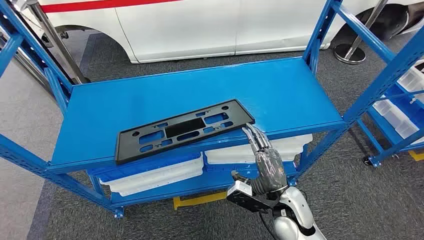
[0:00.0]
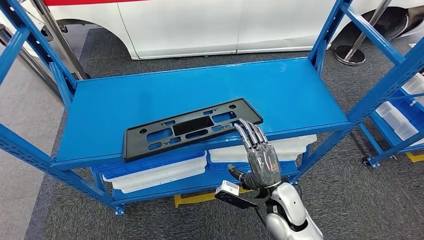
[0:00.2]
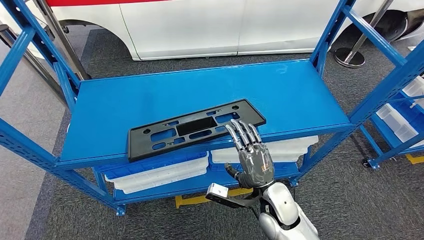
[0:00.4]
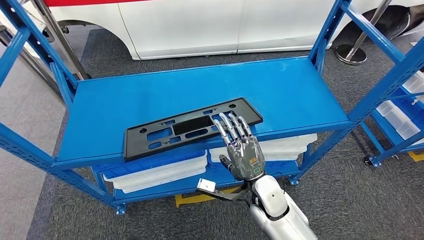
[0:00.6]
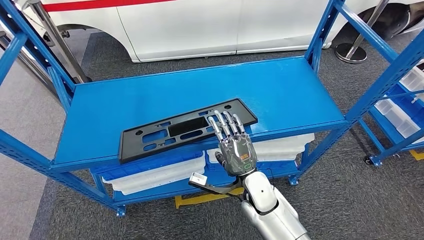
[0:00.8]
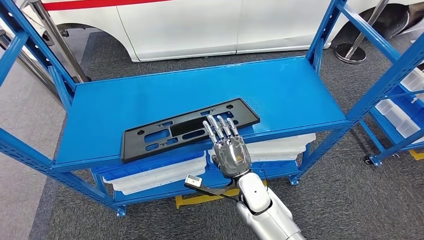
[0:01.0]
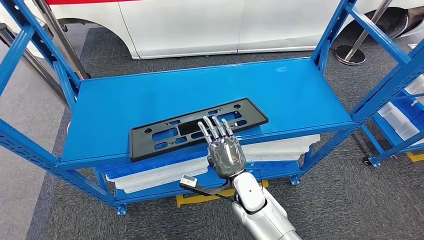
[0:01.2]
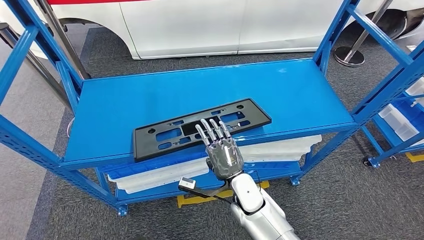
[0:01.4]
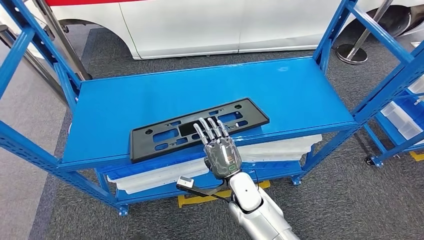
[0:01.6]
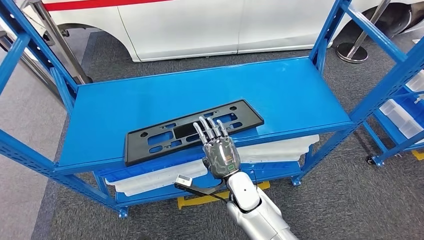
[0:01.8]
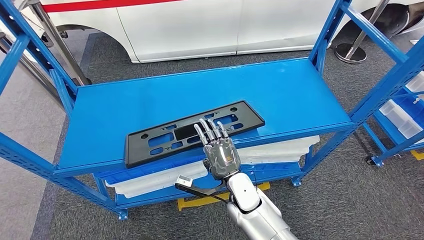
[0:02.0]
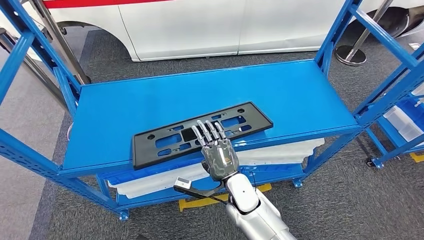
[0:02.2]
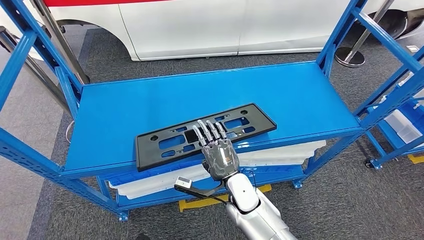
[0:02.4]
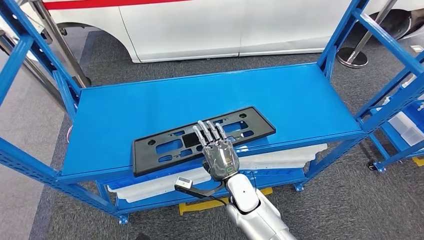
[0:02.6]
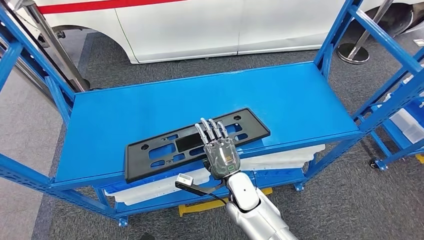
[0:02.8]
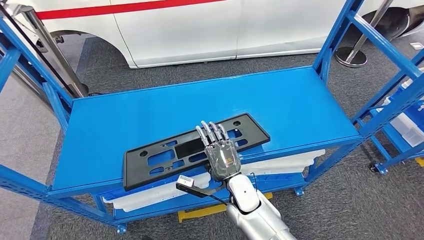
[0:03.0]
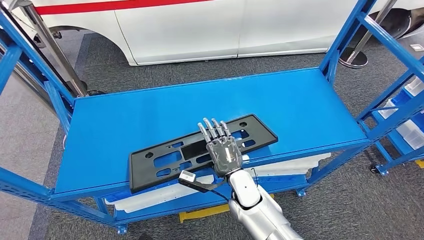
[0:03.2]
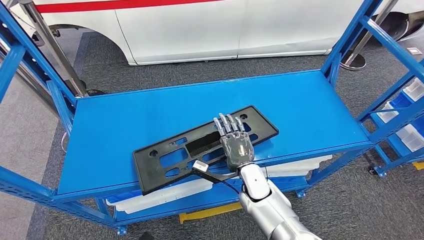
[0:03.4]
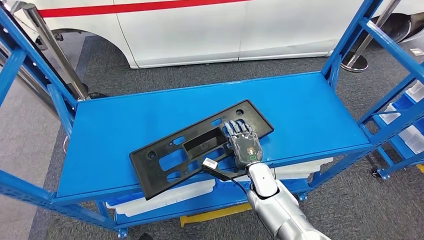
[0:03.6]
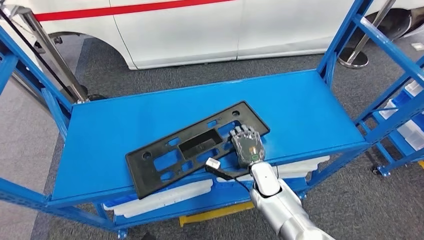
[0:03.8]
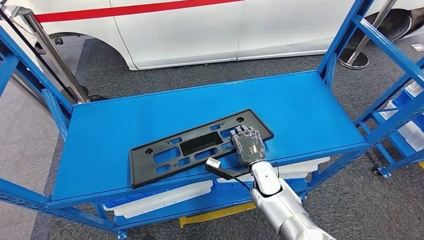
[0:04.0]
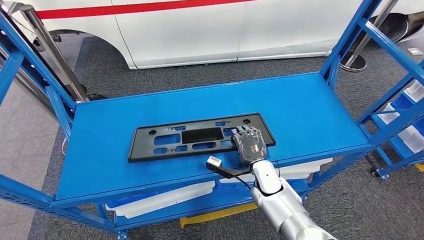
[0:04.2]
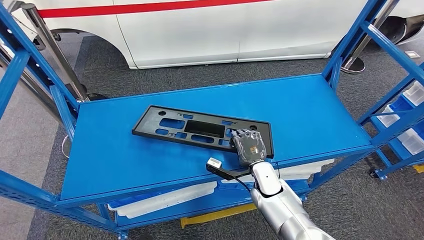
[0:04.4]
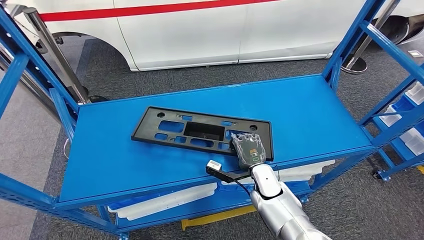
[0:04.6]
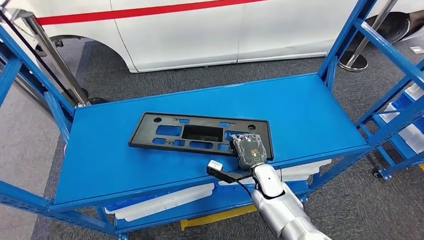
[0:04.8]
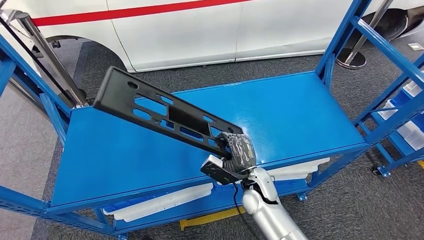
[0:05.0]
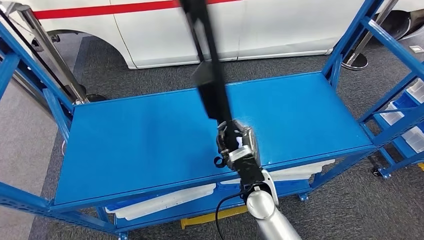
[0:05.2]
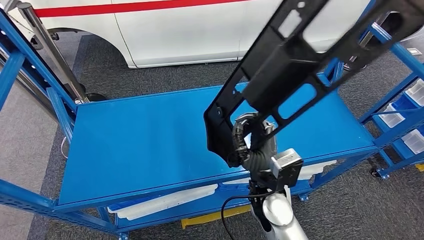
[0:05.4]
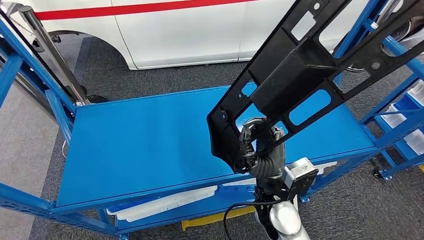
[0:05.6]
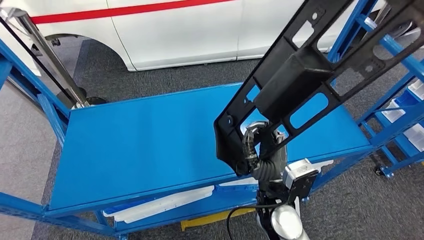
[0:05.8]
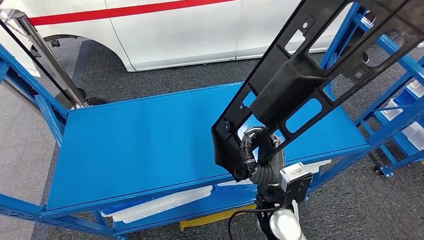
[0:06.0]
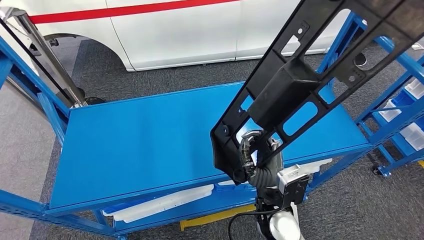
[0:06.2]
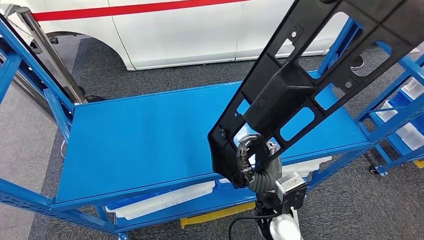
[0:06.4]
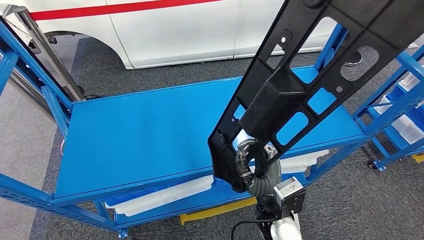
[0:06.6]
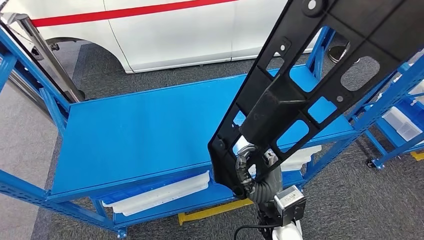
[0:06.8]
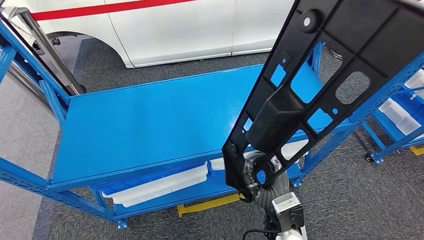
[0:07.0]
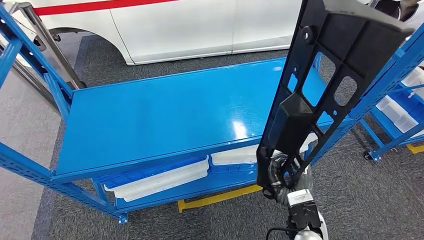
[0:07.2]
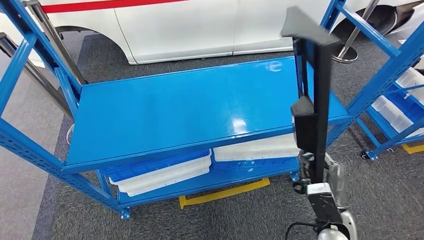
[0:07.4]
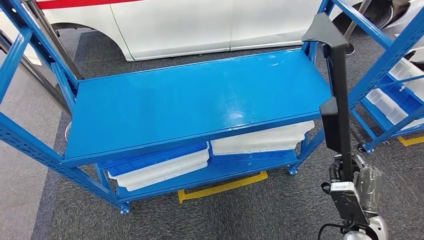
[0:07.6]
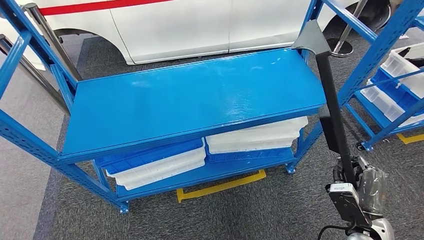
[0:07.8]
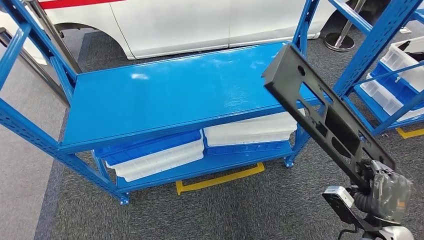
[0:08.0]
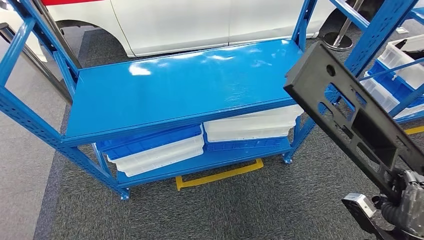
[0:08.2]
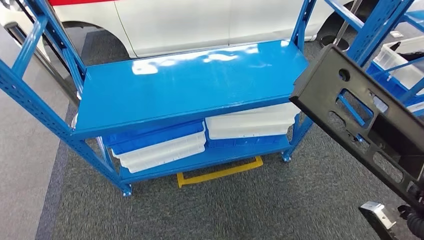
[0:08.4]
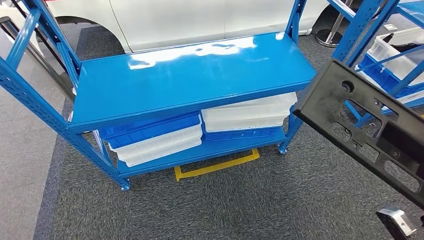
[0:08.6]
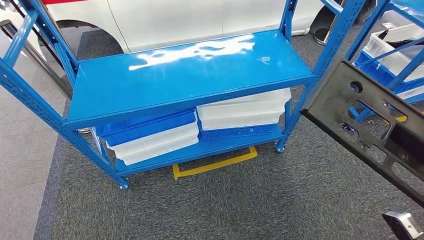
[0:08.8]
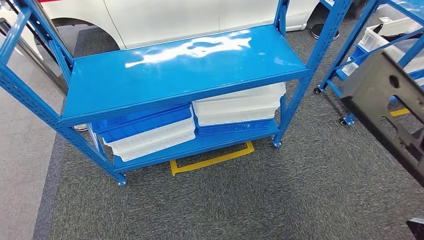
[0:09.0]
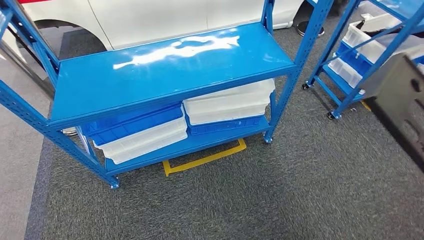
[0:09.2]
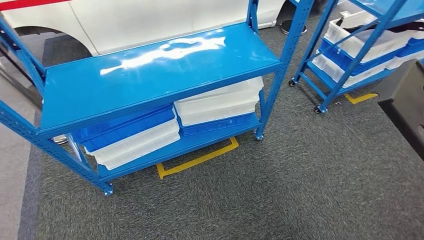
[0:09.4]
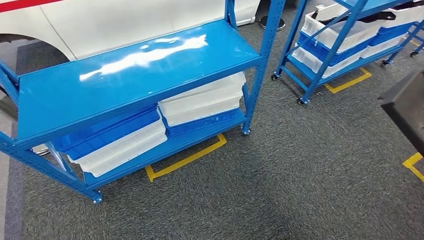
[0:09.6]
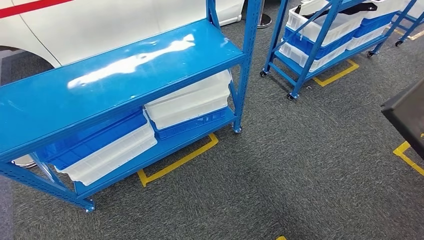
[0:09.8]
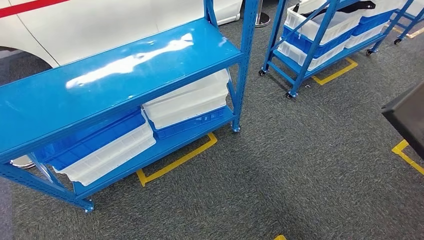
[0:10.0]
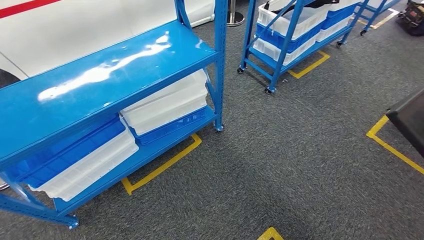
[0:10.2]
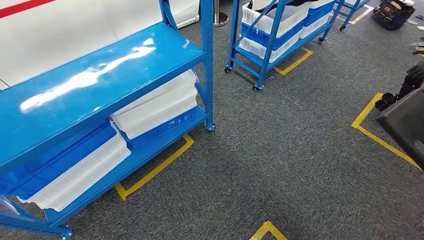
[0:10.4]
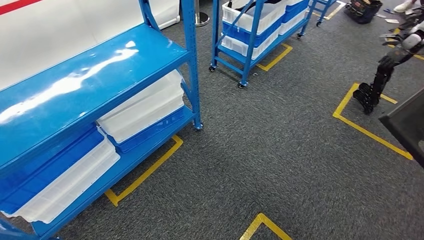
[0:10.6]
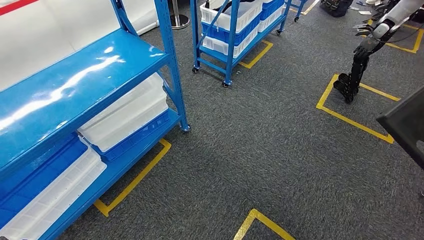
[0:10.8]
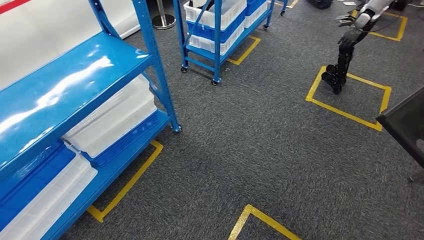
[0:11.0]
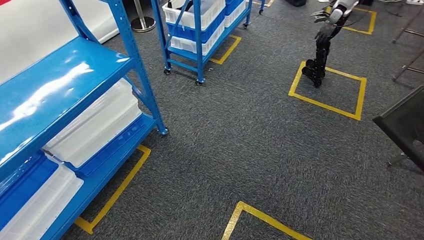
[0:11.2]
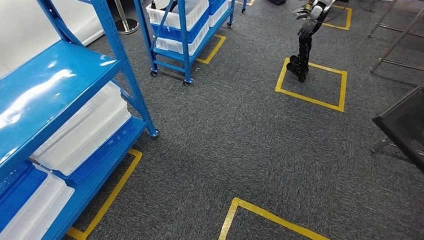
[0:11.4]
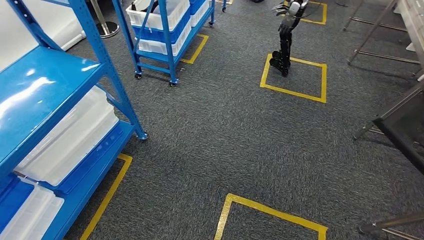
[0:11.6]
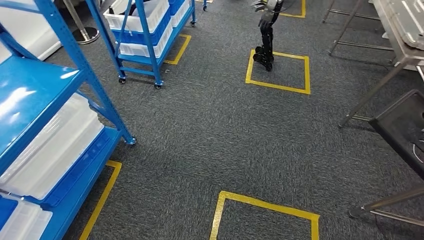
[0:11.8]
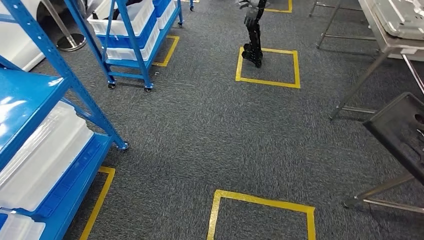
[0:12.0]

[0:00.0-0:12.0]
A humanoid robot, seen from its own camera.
Step, 0:00.0 to 0:05.0: Pick up the large material from the shelf.

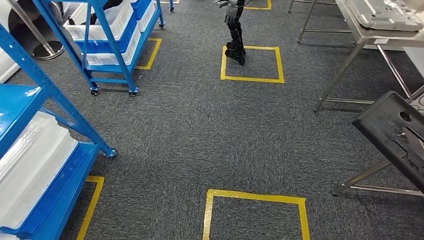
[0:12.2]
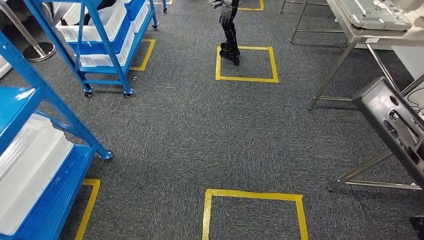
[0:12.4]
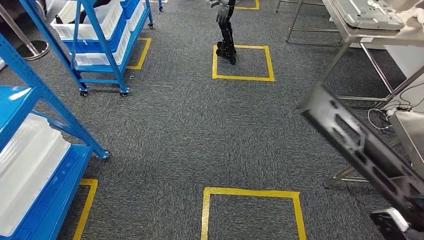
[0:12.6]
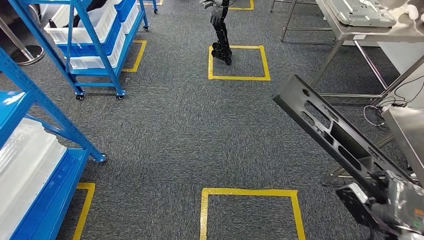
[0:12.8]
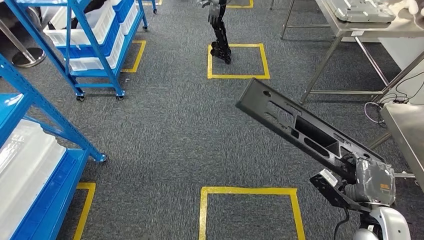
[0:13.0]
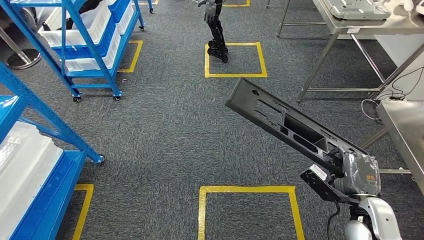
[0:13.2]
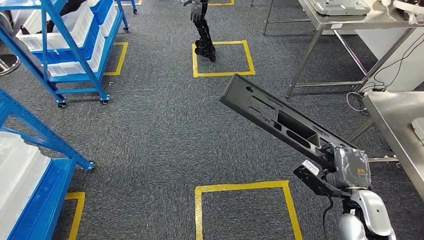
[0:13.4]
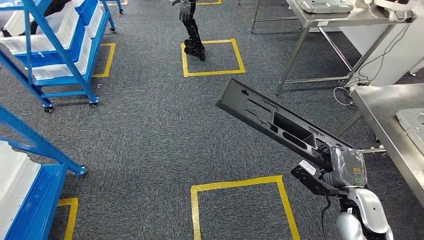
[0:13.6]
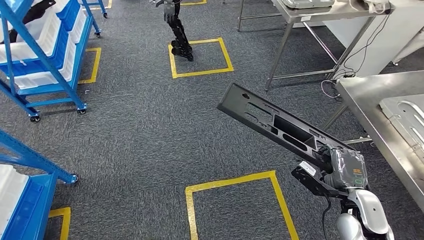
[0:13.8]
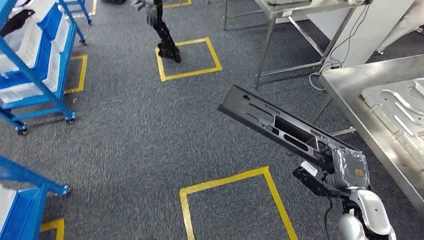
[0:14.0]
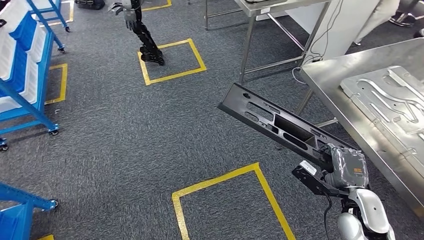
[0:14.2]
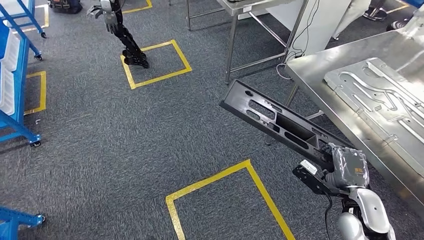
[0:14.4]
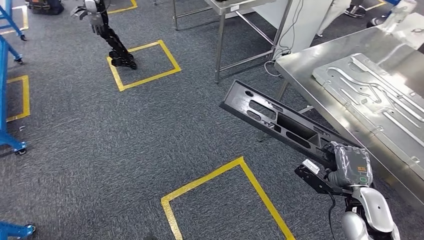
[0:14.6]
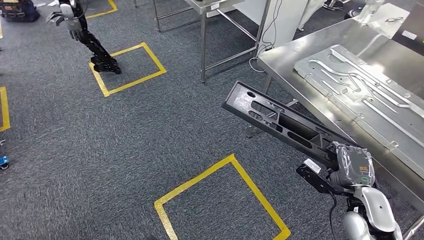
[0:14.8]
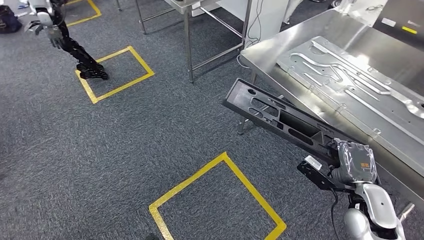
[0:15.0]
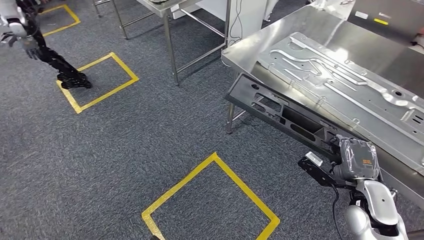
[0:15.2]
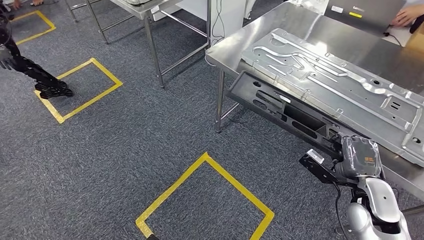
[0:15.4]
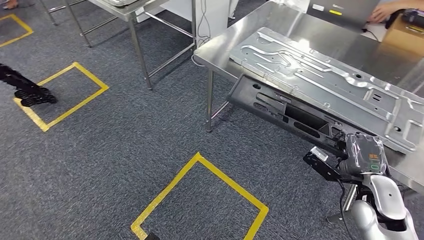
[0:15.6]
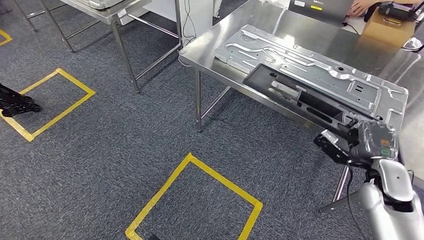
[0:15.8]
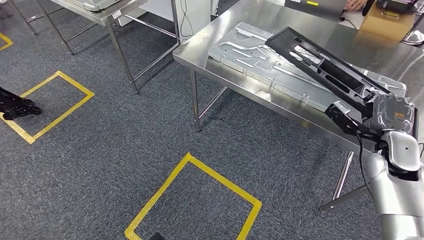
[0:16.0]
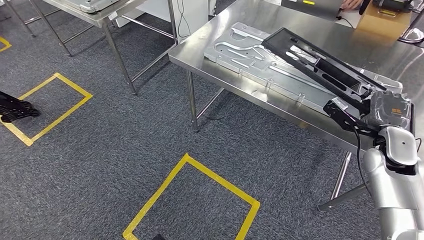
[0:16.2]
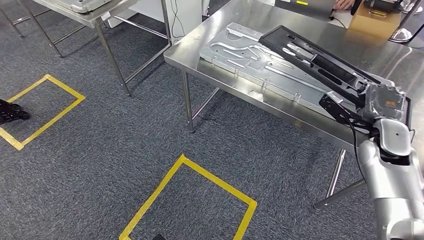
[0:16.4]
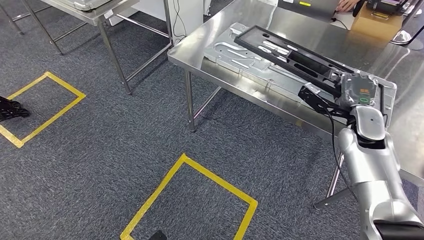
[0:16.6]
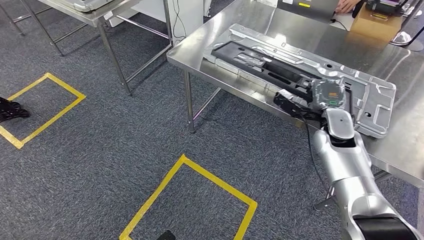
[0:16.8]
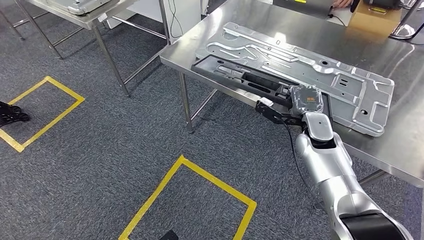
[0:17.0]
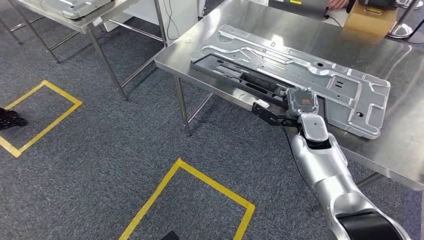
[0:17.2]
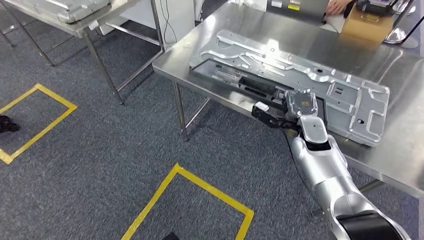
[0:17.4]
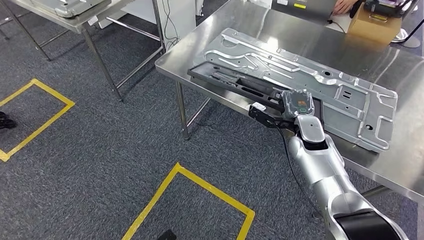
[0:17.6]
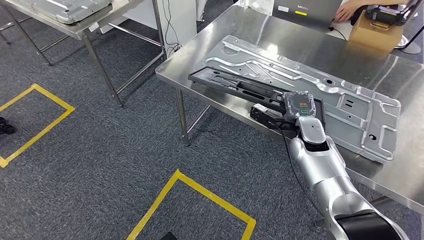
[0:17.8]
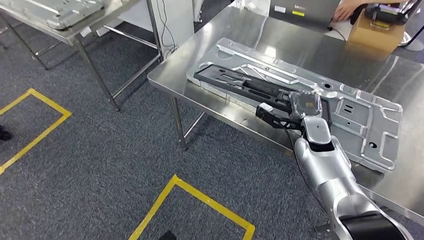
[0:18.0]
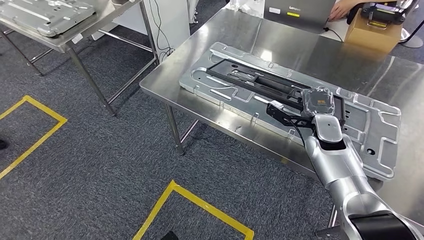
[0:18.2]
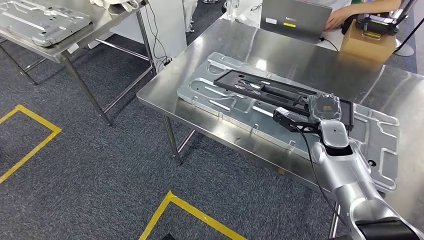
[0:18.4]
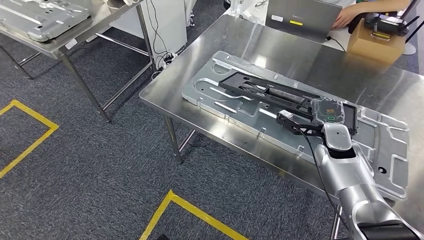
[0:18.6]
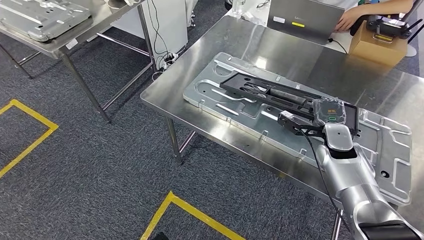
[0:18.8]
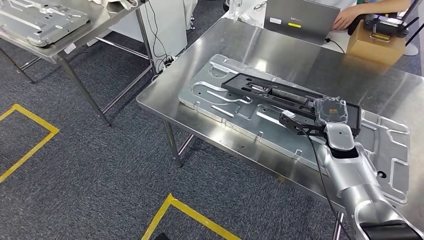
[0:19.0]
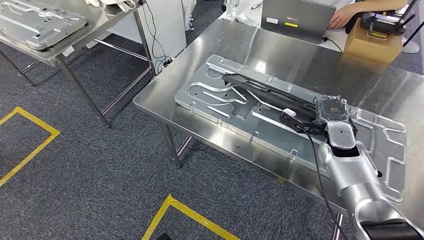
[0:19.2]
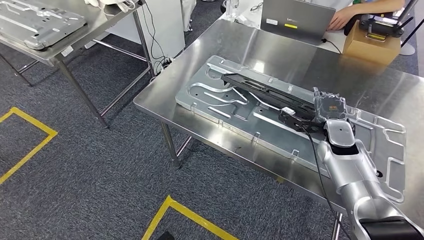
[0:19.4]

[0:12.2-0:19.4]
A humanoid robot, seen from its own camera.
Step, 0:12.2 to 0:16.6: Move the large material to the workbench.
